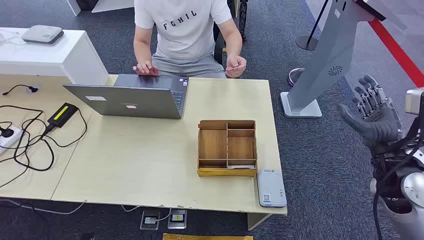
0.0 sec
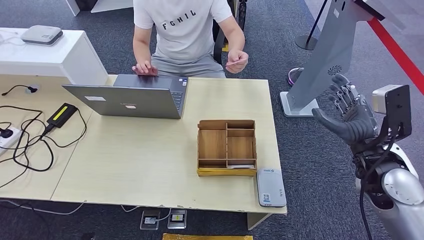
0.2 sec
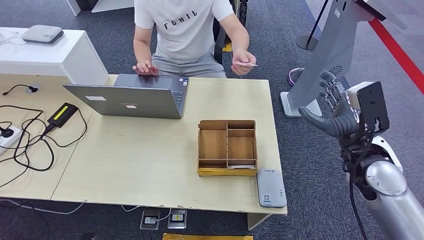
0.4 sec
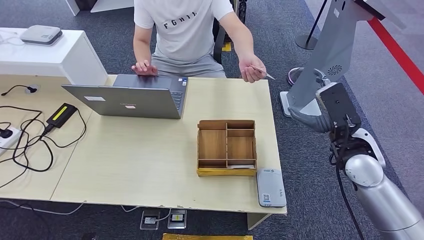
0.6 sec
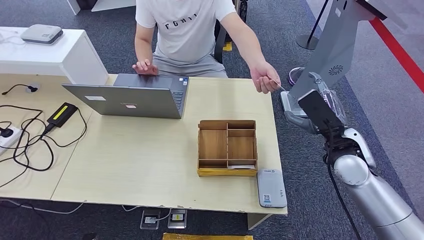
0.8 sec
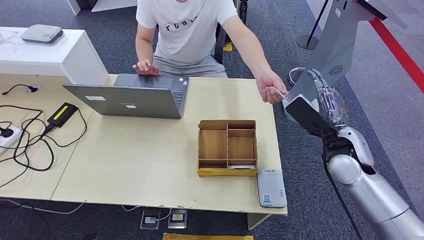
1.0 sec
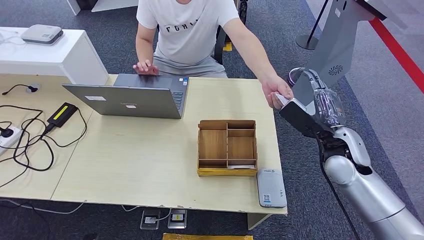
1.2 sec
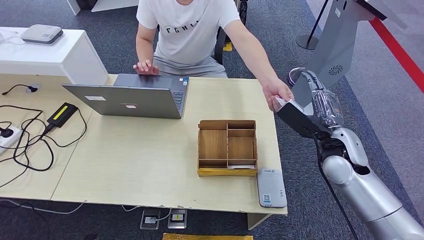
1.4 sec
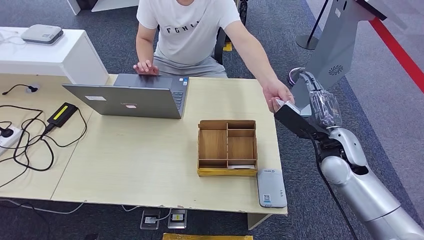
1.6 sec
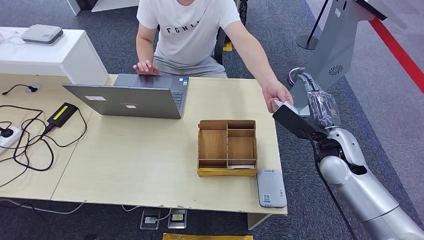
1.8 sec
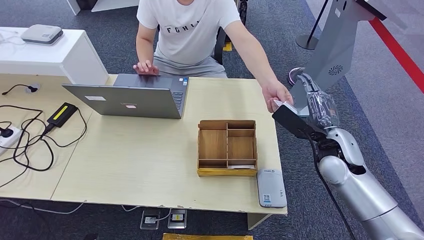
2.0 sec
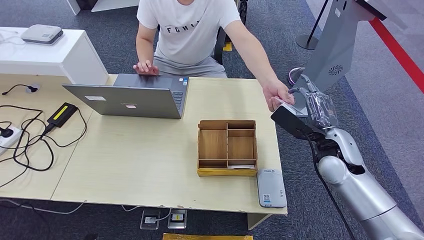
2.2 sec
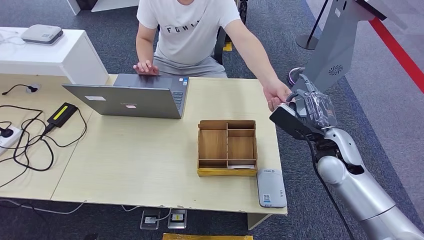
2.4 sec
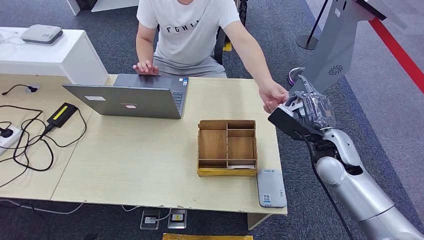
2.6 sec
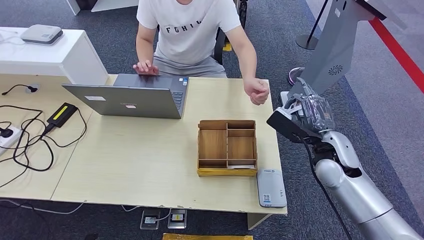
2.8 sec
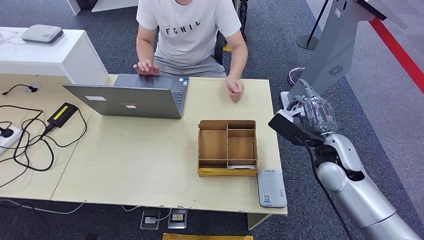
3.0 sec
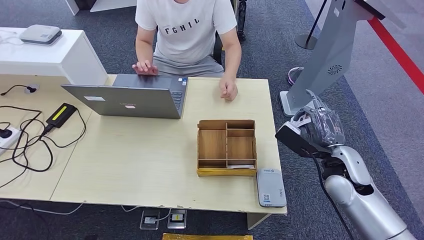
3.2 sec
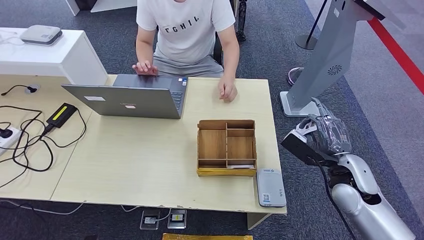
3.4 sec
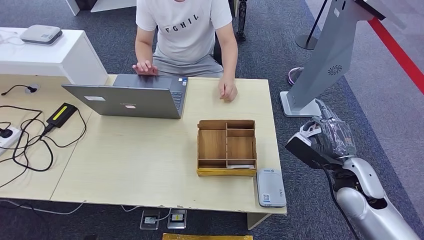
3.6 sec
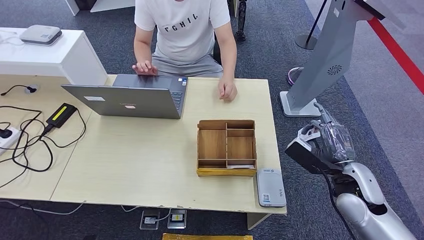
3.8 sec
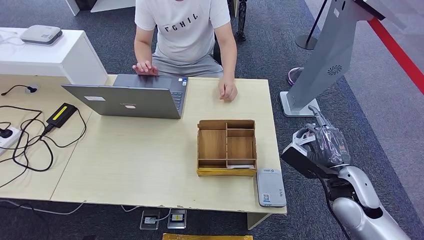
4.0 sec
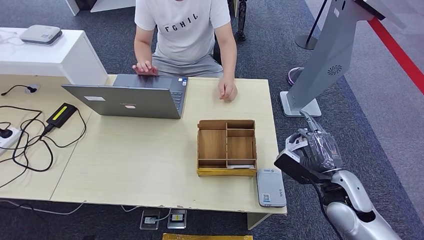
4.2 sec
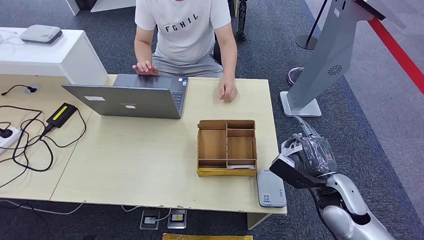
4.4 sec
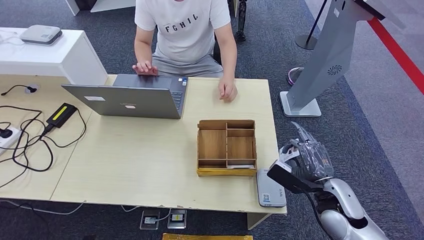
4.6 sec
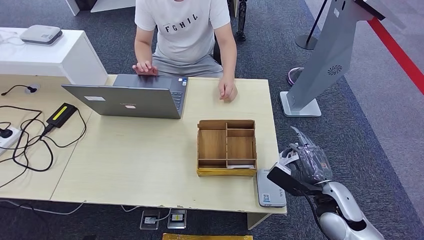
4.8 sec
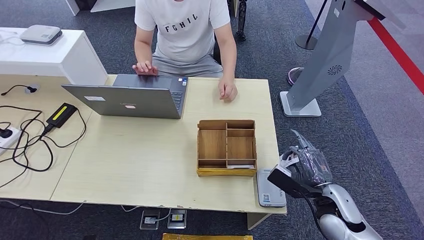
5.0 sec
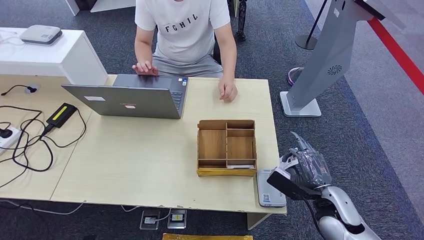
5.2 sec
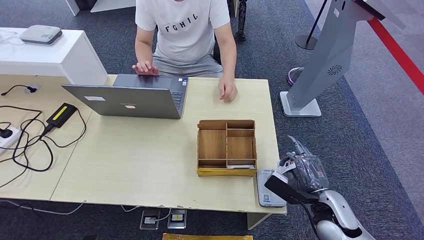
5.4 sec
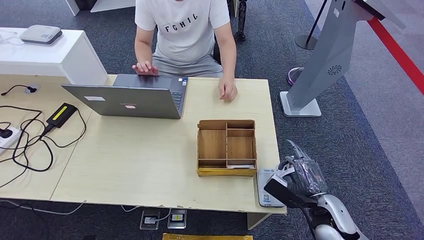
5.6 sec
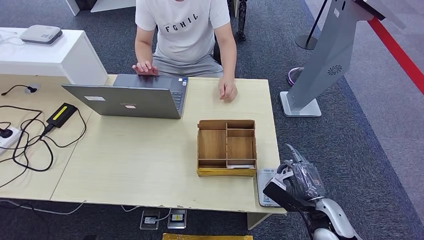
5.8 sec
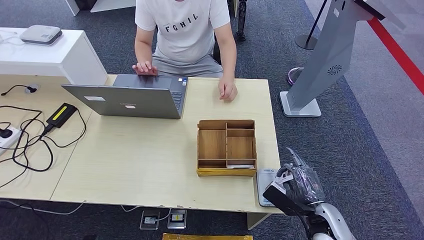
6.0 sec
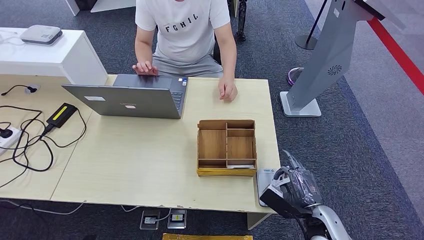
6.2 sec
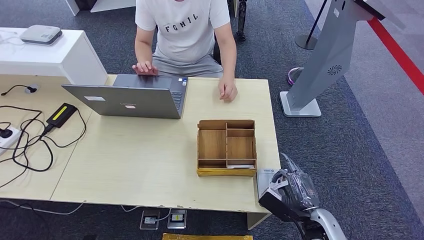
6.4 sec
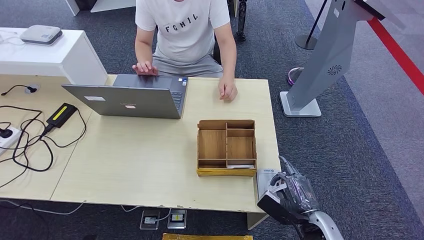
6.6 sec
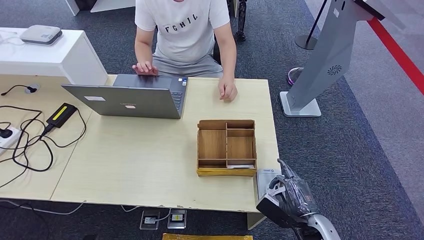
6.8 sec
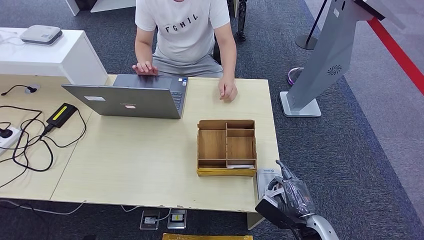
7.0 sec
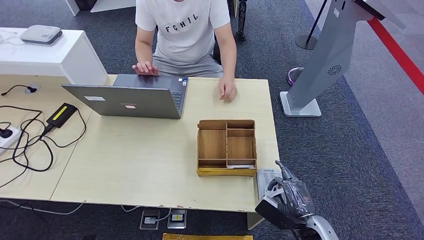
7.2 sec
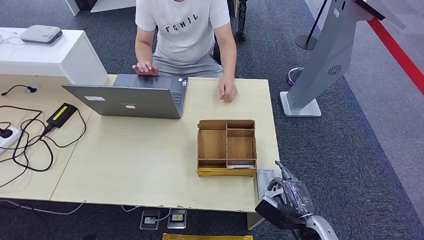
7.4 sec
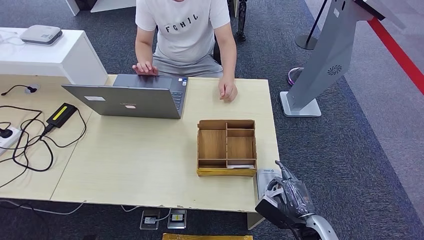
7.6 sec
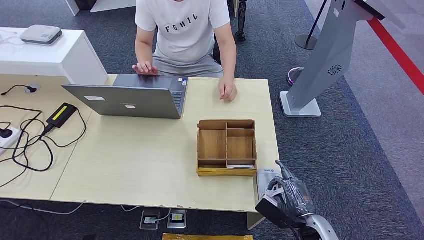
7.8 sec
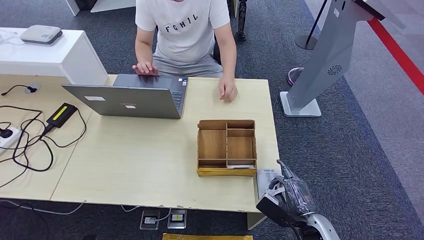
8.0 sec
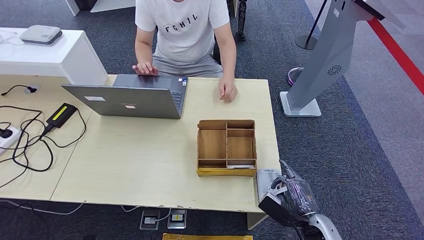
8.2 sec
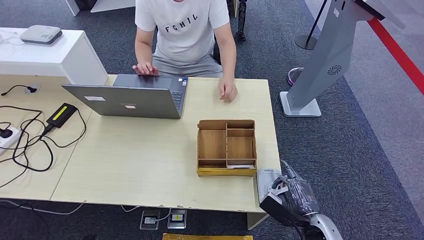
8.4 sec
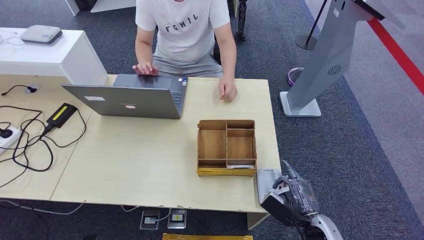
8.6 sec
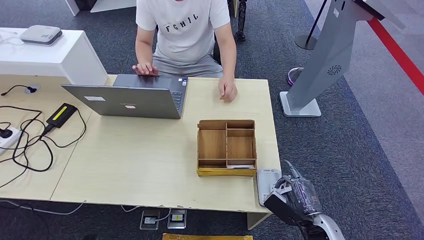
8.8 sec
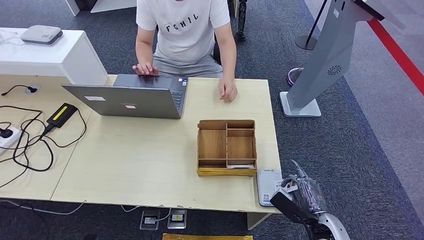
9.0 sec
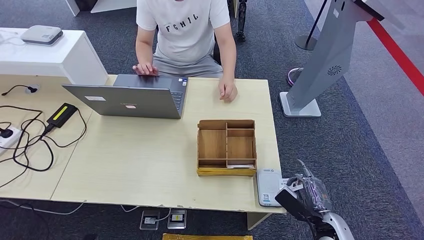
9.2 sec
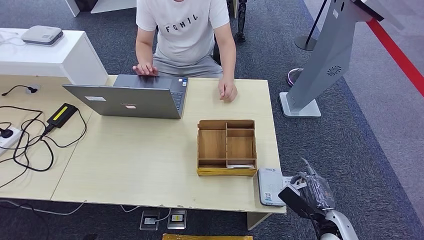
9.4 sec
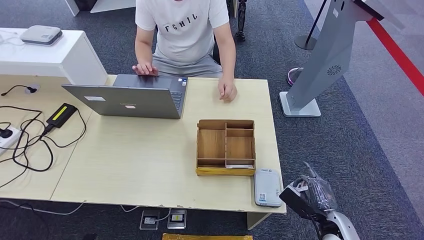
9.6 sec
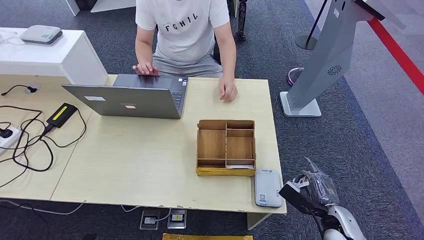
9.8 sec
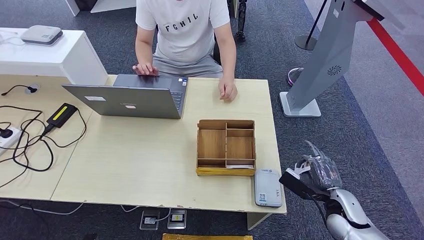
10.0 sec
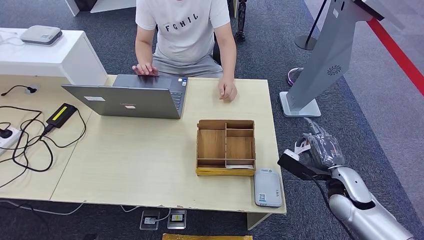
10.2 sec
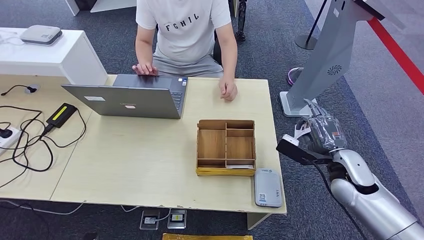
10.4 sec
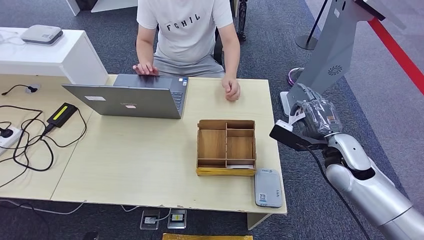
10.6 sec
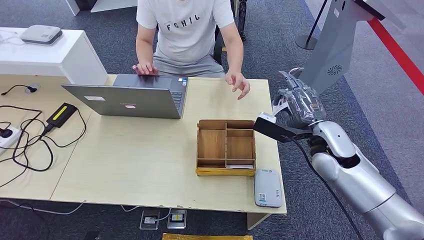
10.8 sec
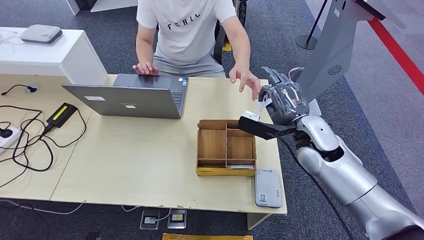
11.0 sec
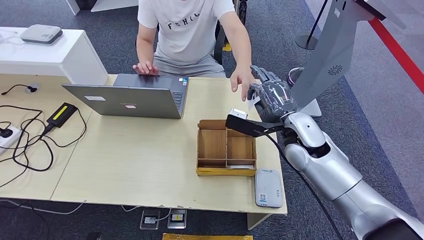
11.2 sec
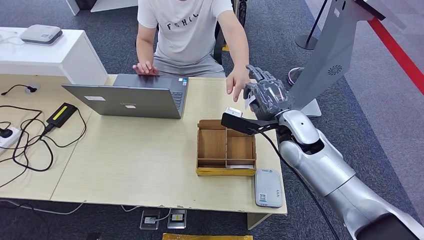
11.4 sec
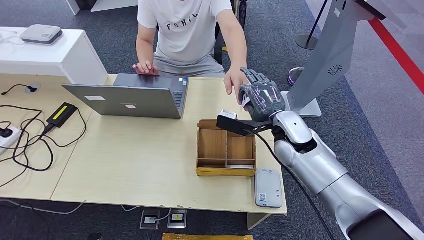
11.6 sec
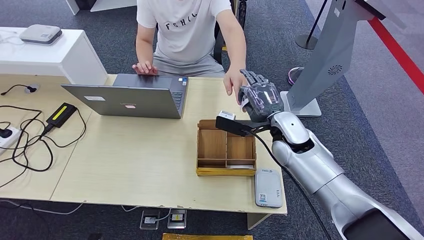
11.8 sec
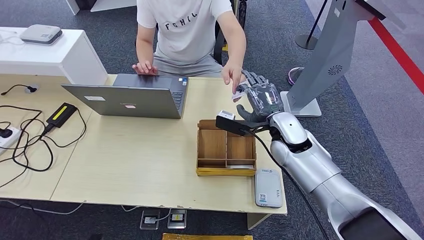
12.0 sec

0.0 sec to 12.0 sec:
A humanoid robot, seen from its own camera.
Step, 0.0 sec to 3.4 sec: Take the ID card from the person's hand.
Step, 3.6 sec to 10.0 sec: Place the ID card on the card reader.
1.6 sec to 3.0 sec: There are only small adjustments of the hands.
3.0 sec to 4.4 sec: The right hand is displaced backward and downward by about 10 cm.
4.4 sec to 6.0 sec: The right hand goes some 10 cm downward.
6.0 sec to 9.0 sec: There are only small adjustments of the hands.
9.0 sec to 10.4 sec: The right hand heads upward and forward, covering some 20 cm.
10.4 sec to 12.0 sec: The right hand shifts some 20 cm to the left and forward.

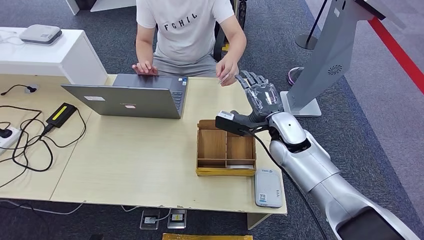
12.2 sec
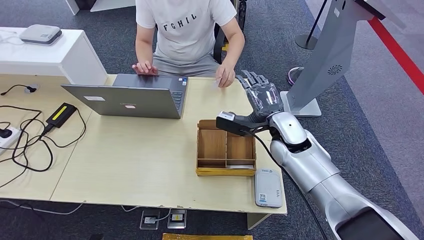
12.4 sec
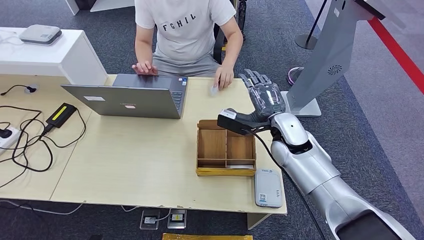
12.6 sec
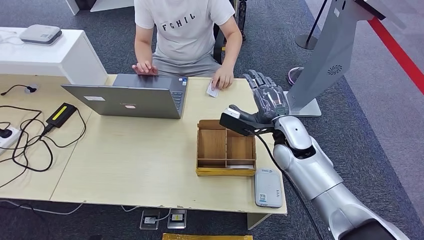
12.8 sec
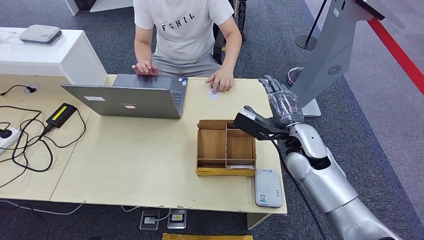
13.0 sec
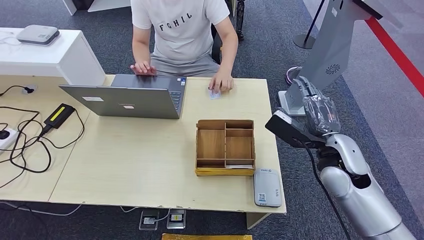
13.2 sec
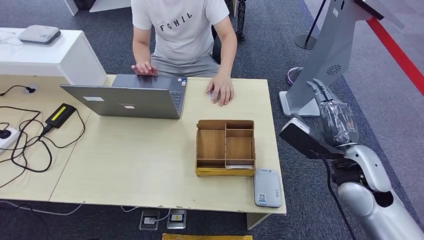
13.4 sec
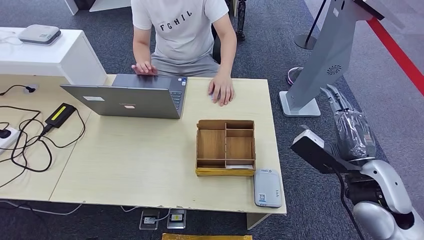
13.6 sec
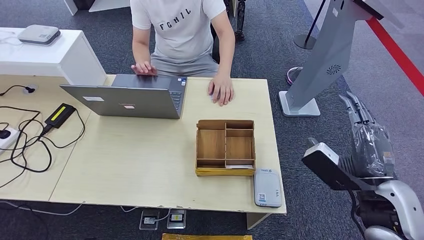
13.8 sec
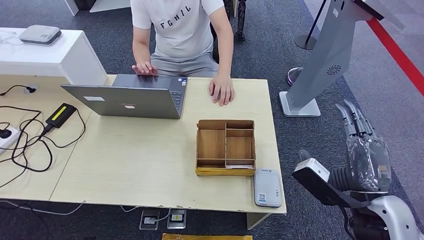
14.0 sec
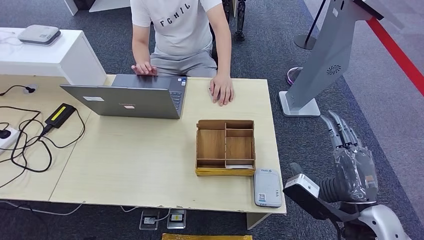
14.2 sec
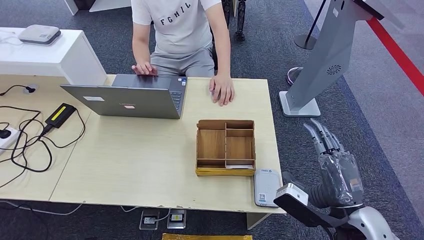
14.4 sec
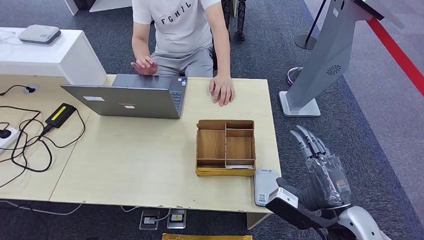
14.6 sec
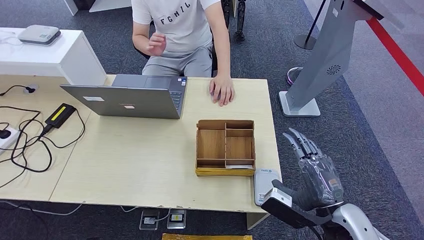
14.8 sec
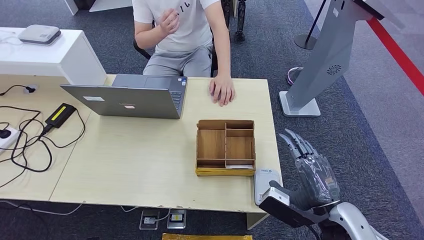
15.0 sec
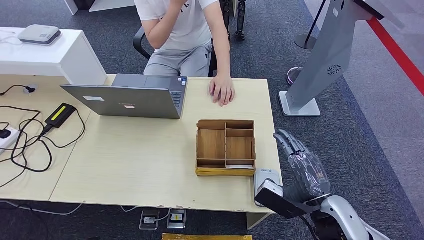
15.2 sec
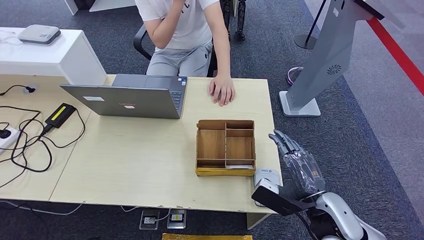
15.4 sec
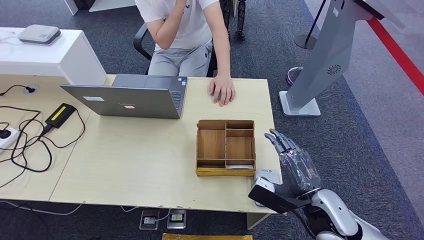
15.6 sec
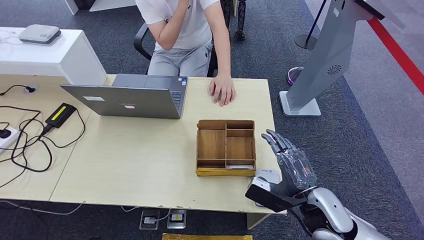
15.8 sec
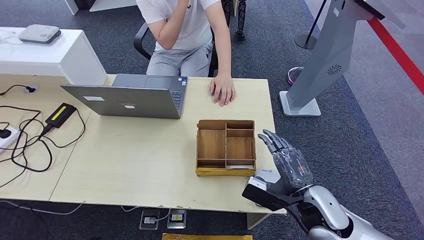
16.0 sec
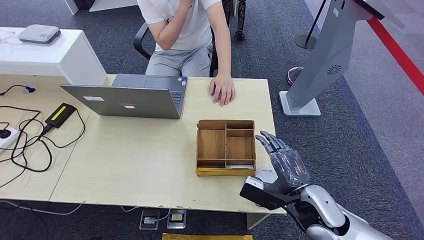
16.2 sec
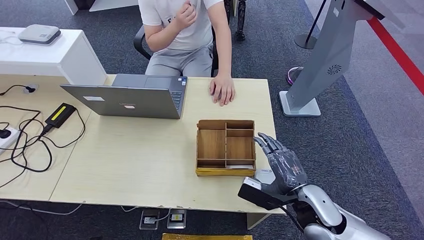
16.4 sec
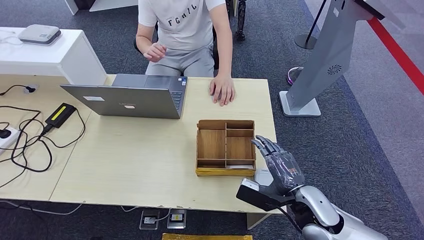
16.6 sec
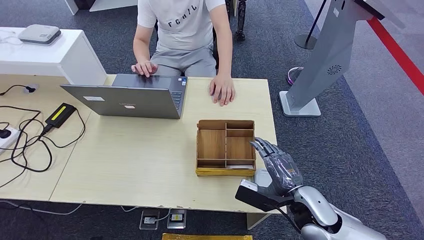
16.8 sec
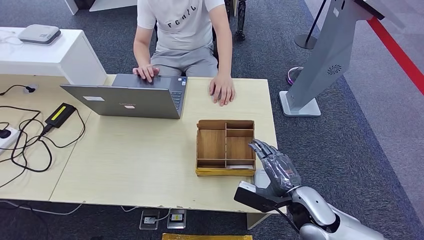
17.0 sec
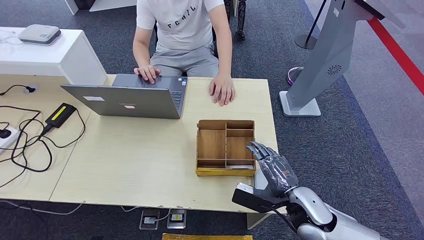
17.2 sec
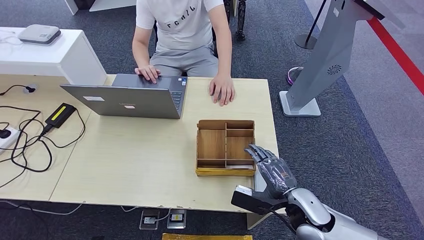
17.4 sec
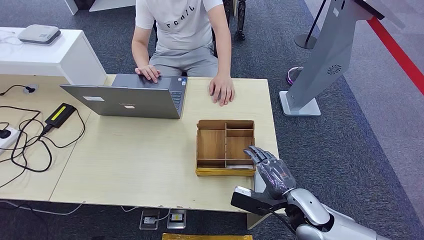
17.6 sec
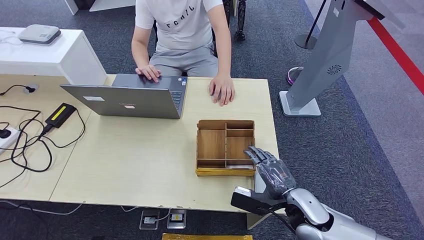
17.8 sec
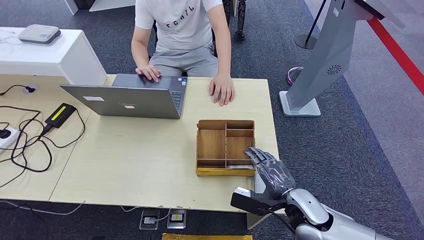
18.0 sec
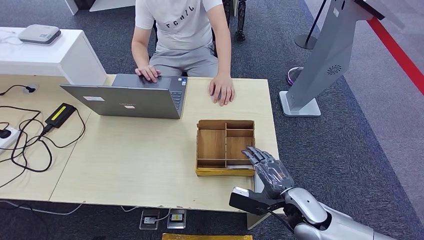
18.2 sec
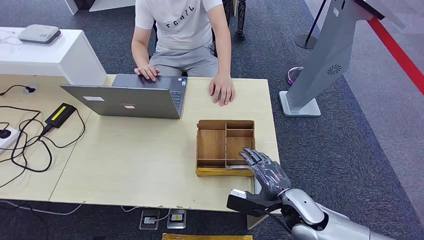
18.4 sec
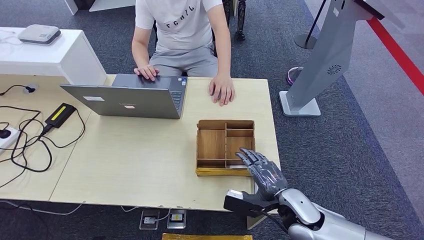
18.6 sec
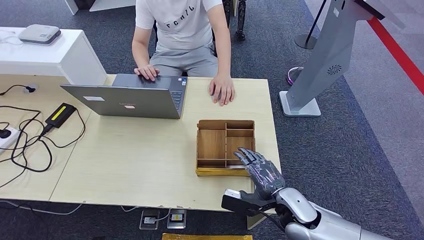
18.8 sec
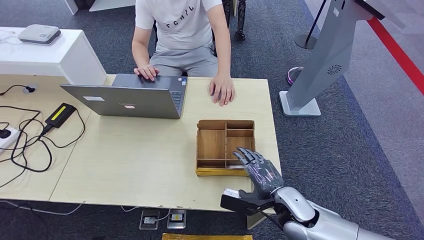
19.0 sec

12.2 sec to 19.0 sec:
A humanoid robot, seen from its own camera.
12.2 sec to 13.6 sec: The right hand heads to the right and backward, covering some 20 cm.
13.6 sec to 15.0 sec: The right hand shifts approximately 10 cm backward and downward.
15.0 sec to 16.2 sec: The right hand changes place by about 5 cm.
16.2 sec to 19.0 sec: The hands stay close to where they were, moving slightly.
